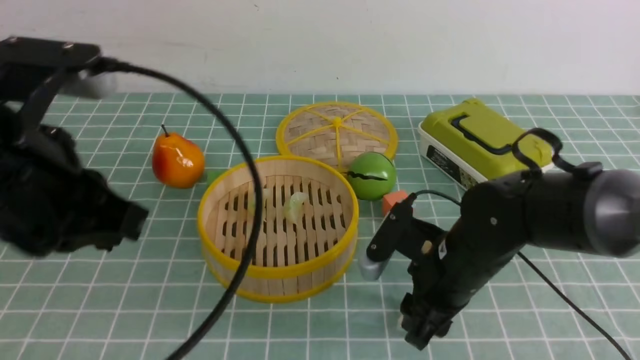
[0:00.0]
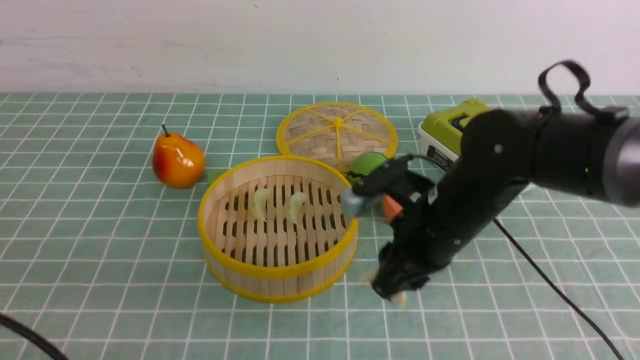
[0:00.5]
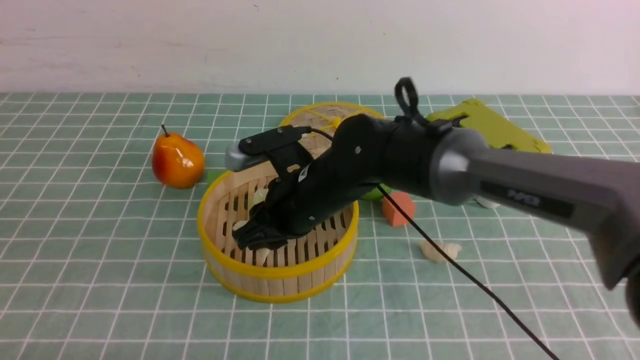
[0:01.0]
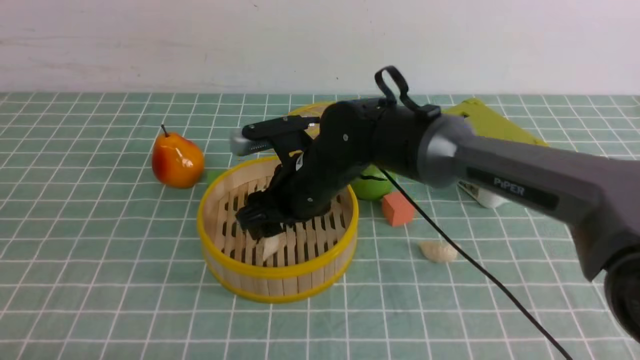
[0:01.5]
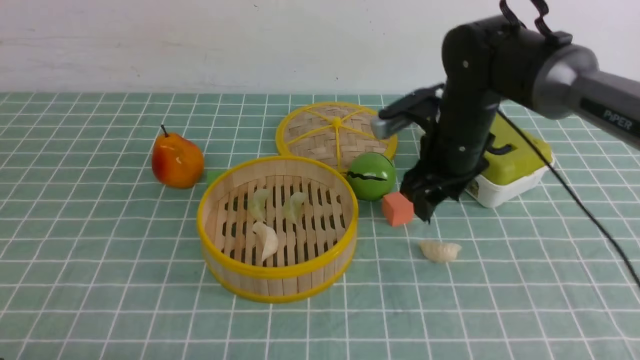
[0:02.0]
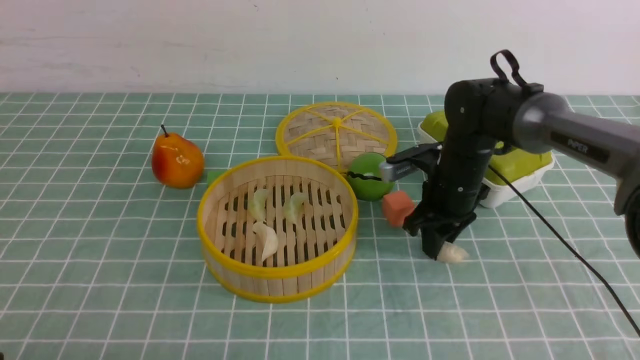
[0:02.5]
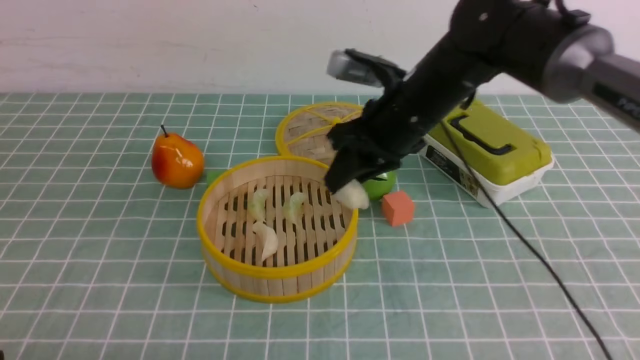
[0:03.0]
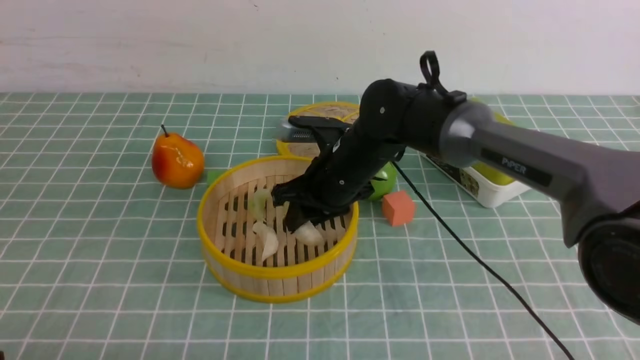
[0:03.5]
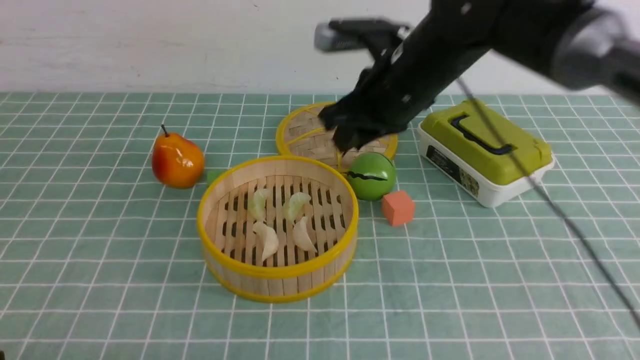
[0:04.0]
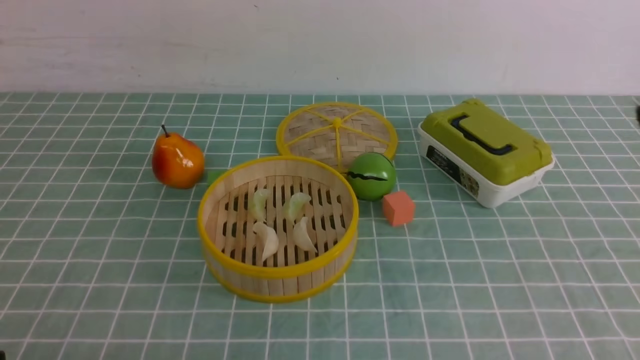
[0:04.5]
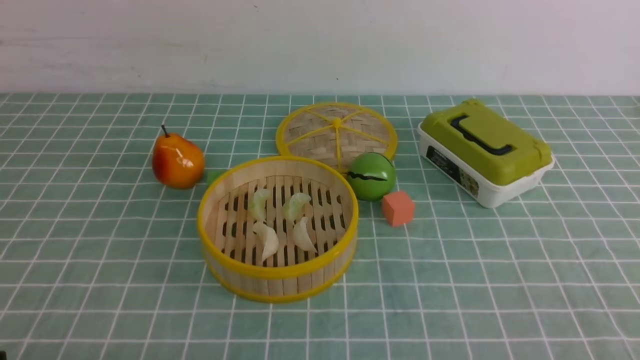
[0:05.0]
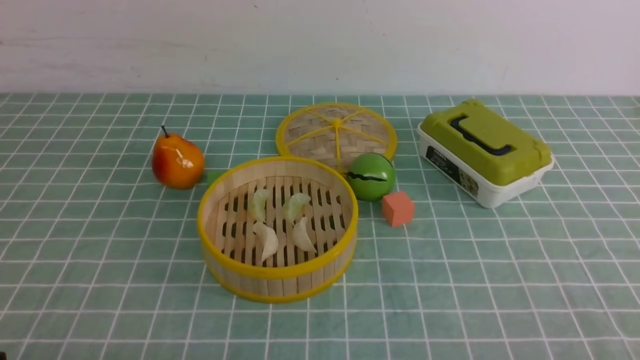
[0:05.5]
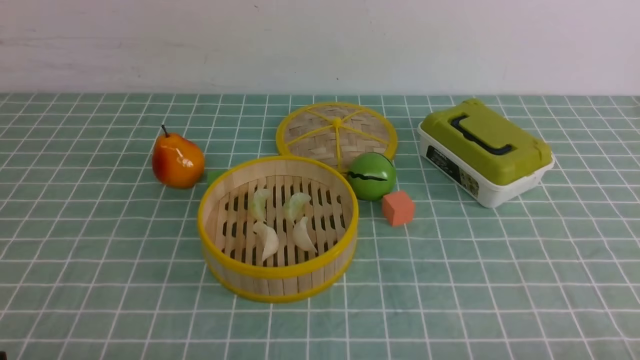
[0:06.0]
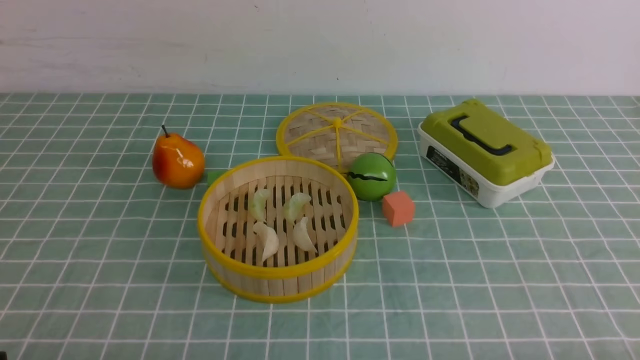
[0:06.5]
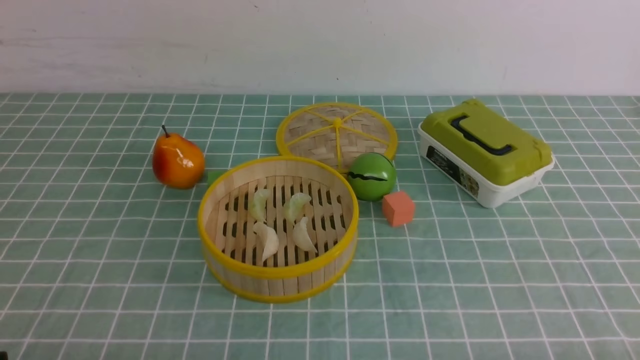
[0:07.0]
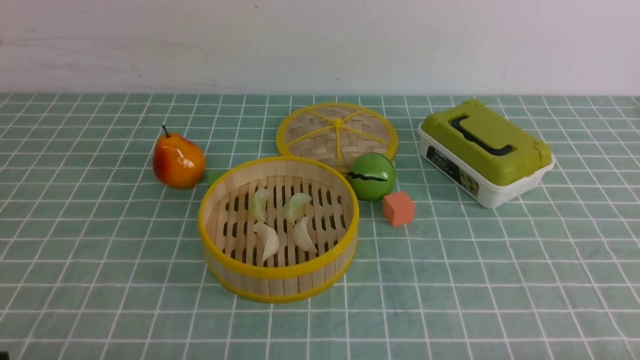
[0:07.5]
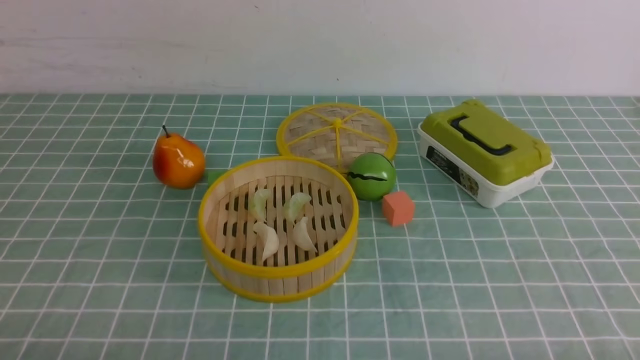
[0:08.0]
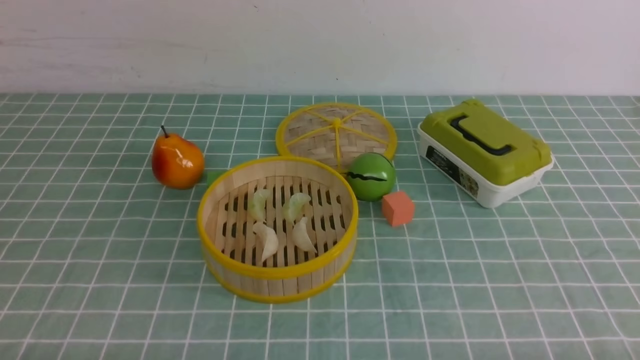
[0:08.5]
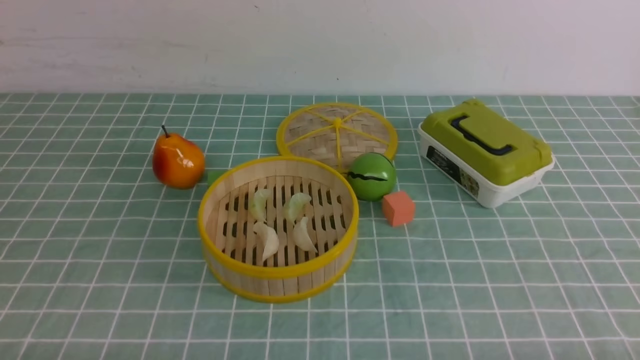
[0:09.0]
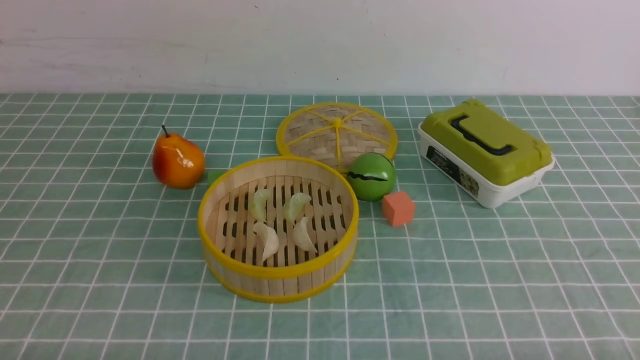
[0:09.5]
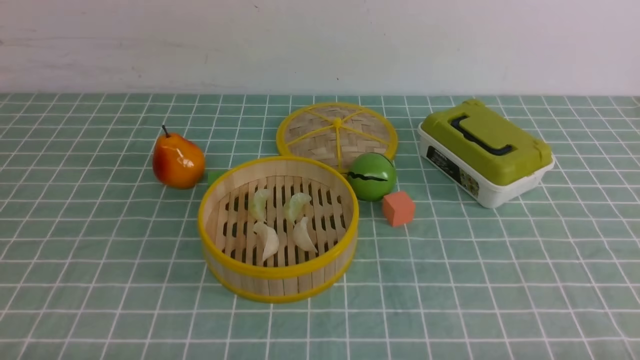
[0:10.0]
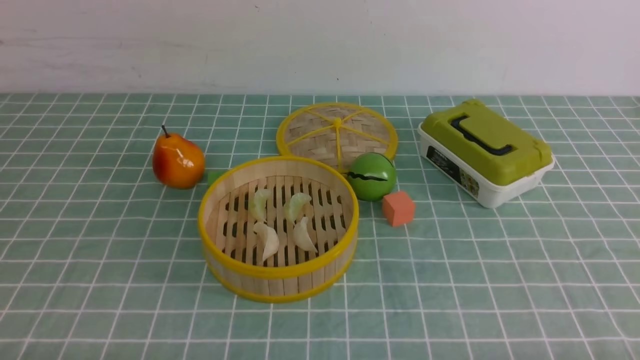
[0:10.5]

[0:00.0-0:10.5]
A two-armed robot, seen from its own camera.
Task of the whole recording: put the dumplings into the steamer on the table with the blue tablecloth.
Step, 0:00.5 to 0:01.5: use the right arm to put the dumpling into the steamer.
Step, 0:02.0 to 0:02.5: use the right arm to grab a dumpling.
Step, 0:03.0 to 0:03.5: use the right arm to put the dumpling into the steamer.
0:00.0 to 0:02.0: The right gripper goes roughly 15 cm forward and upward, and reaches roughly 15 cm to the left, then returns. The left gripper moves backward, downward and to the left, some 20 cm.
0:02.0 to 0:04.0: The right gripper swings up and down, approximately 15 cm each way, with 3 reversals, and closes up.
0:04.0 to 0:06.5: The right gripper goes approximately 40 cm backward, to the right and downward.
0:08.5 to 0:10.5: Both grippers stay put.
